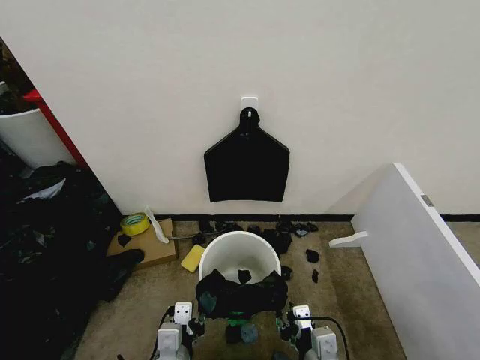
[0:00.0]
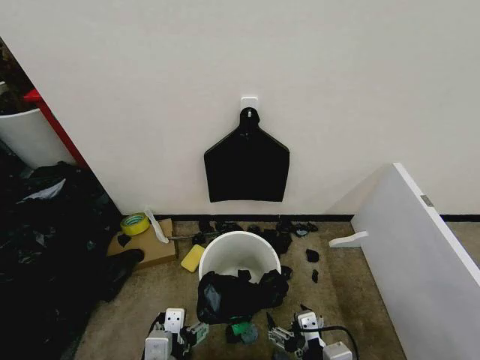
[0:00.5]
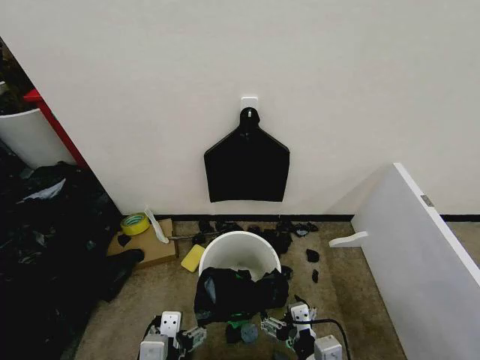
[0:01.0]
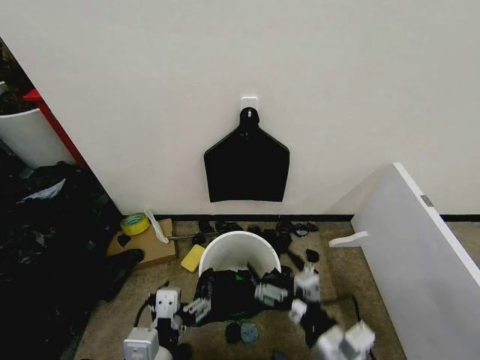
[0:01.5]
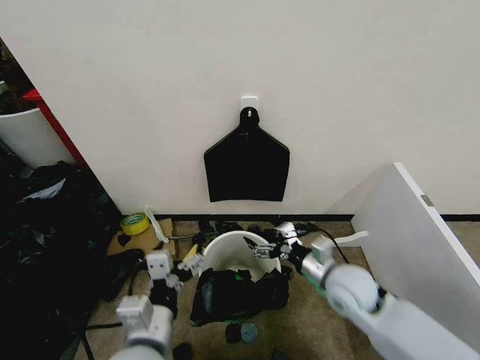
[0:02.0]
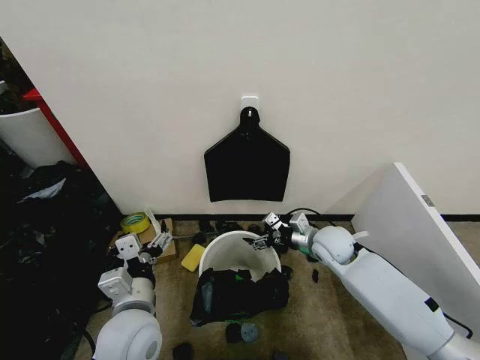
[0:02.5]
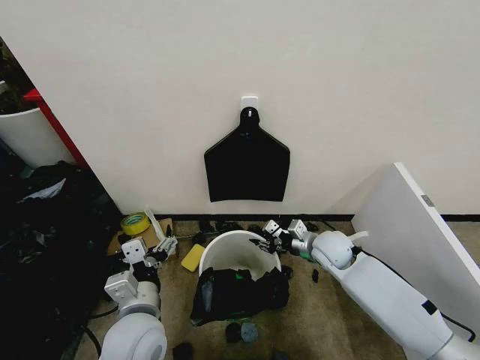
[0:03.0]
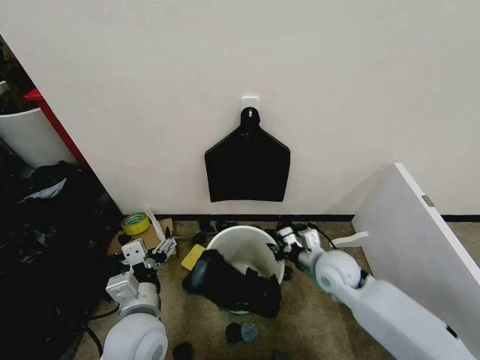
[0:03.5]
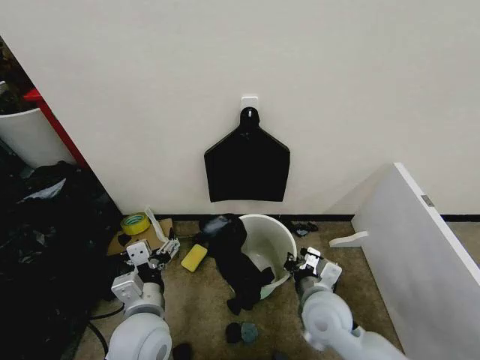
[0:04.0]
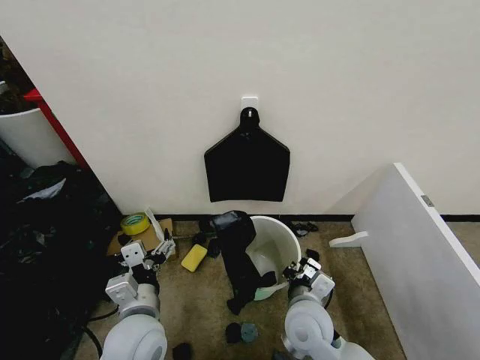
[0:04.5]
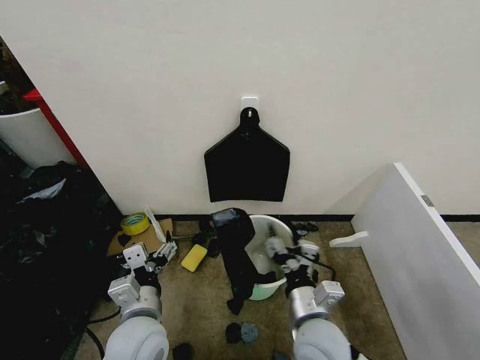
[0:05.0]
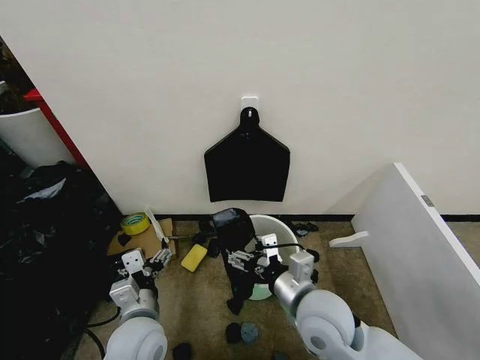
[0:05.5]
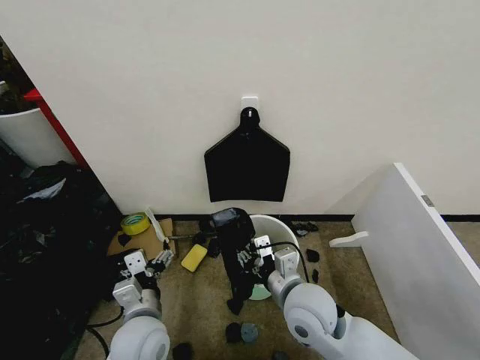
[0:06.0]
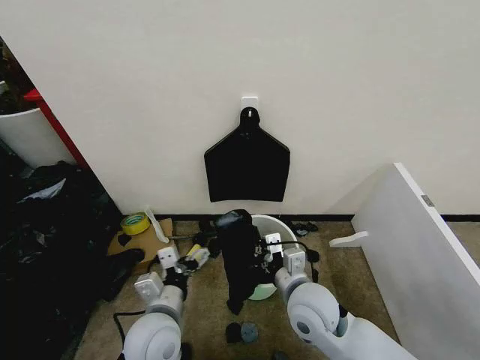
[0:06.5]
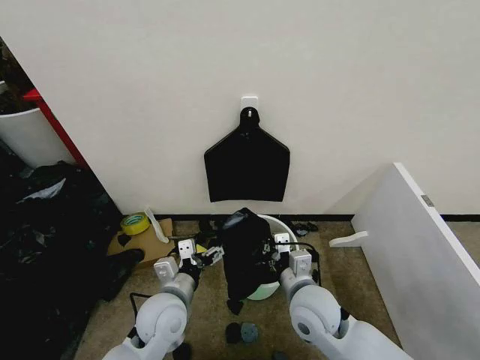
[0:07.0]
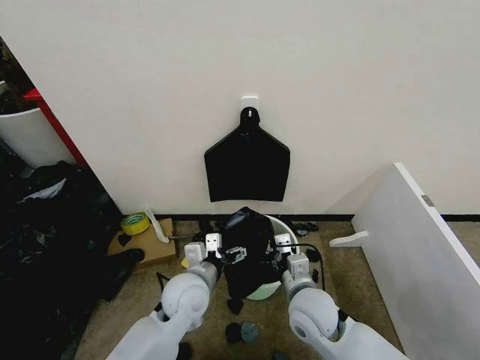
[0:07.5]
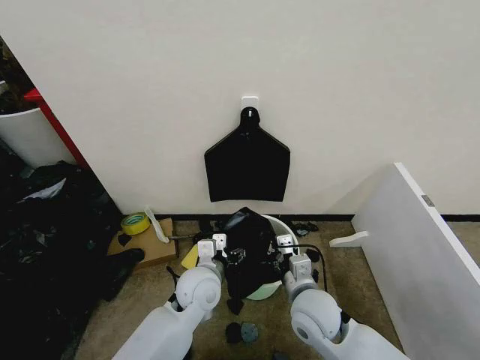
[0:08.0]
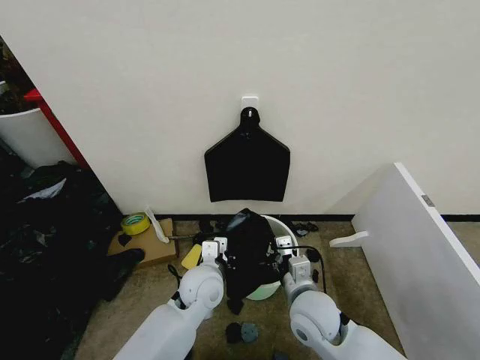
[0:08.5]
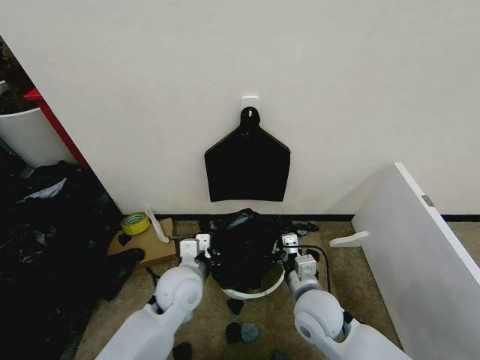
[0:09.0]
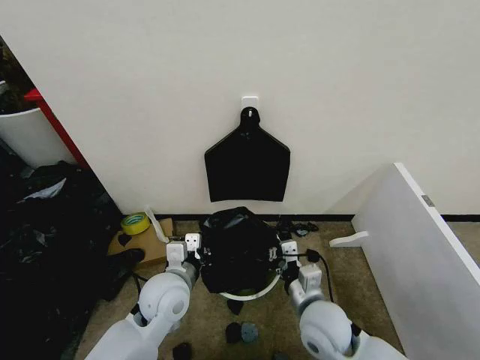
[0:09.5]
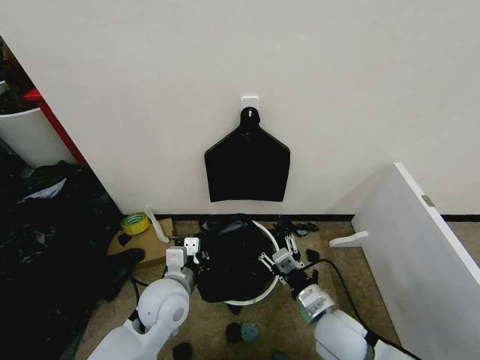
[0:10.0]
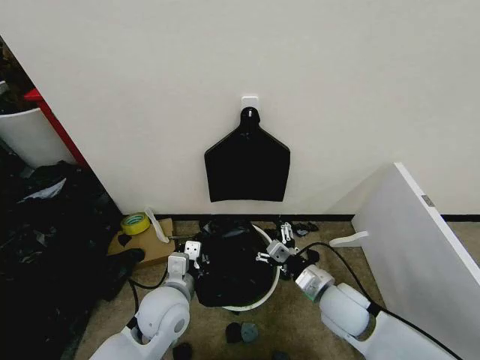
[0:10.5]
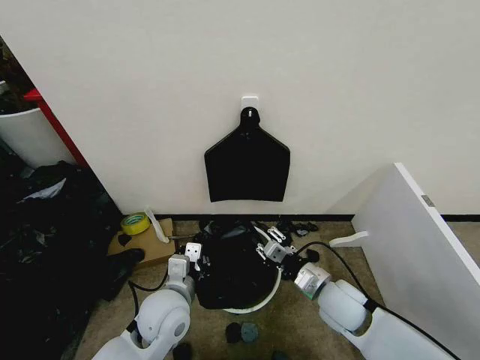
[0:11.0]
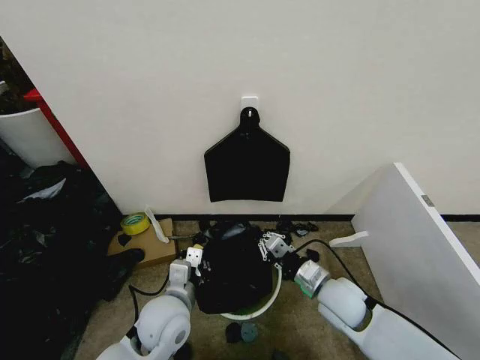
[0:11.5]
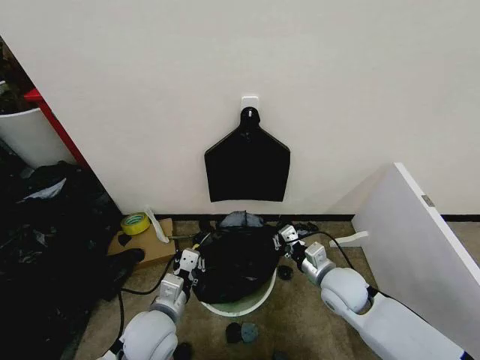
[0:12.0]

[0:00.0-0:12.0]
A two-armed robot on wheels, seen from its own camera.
Task of the whole recording: Place the garbage bag over the trash bin.
0.0 to 2.0 s: The left gripper moves upward, about 10 cm, and opens. The right gripper is displaced forward by roughly 15 cm, and opens its fingers.
2.0 to 4.0 s: The right gripper moves to the left, approximately 5 cm, moves roughly 10 cm forward and comes back, and closes its fingers, while the left gripper shifts some 5 cm forward.
4.0 to 6.0 s: The right gripper moves approximately 5 cm, and opens.
6.0 to 8.0 s: The right gripper shifts by about 5 cm, and closes up; the left gripper moves forward and to the right, some 15 cm.
8.0 to 10.0 s: The left gripper shifts about 5 cm to the left, and closes, while the right gripper moves approximately 5 cm, and opens its fingers.
10.0 to 12.0 s: The left gripper ends up approximately 5 cm from where it was. Meanwhile the right gripper heads forward, covering roughly 10 cm, and closes.

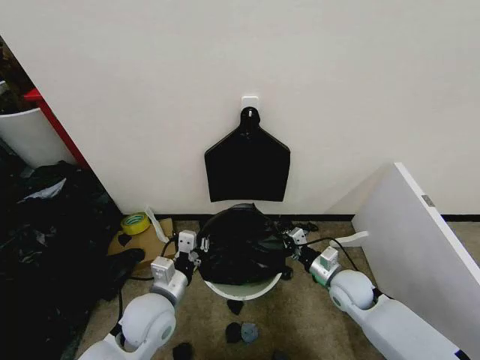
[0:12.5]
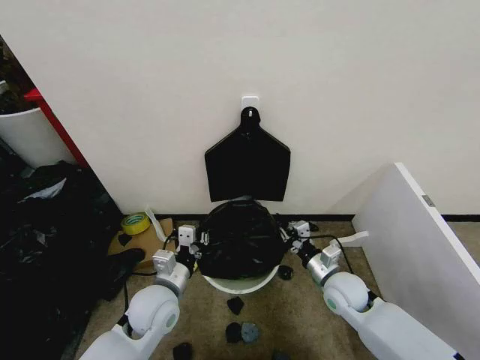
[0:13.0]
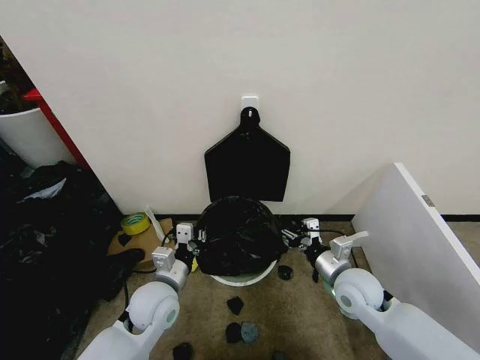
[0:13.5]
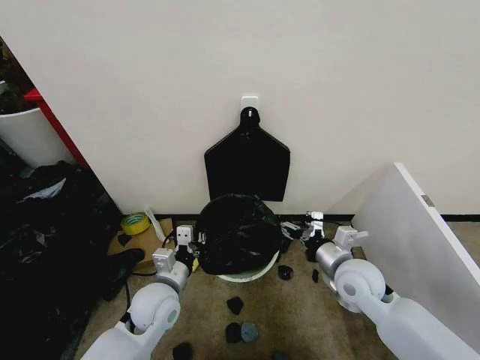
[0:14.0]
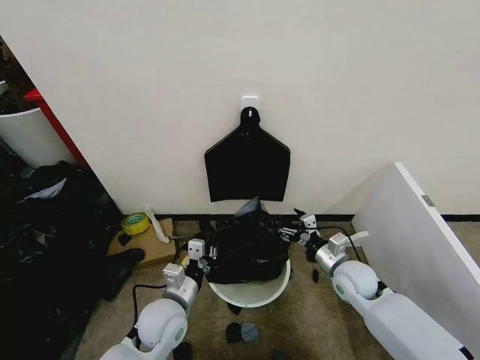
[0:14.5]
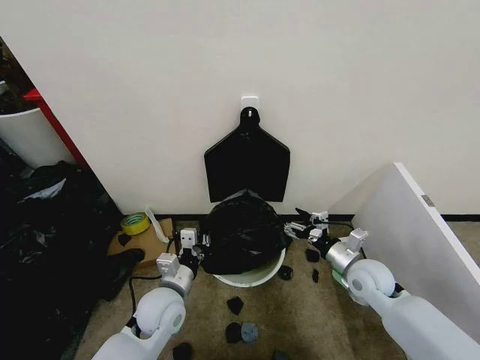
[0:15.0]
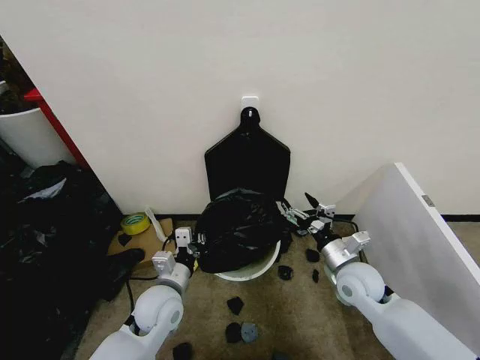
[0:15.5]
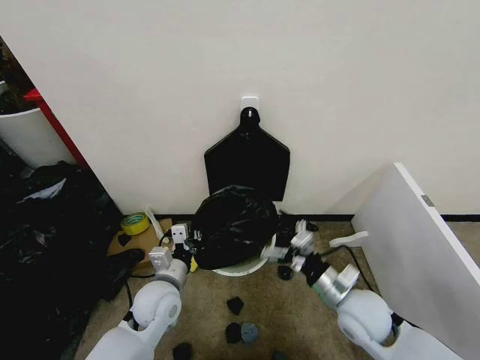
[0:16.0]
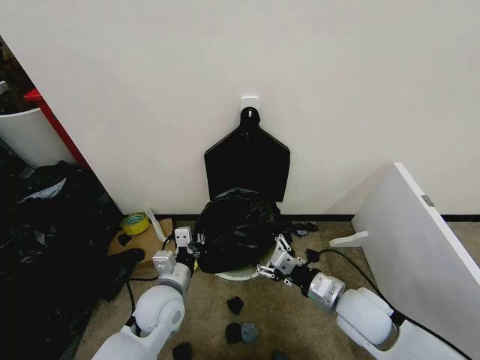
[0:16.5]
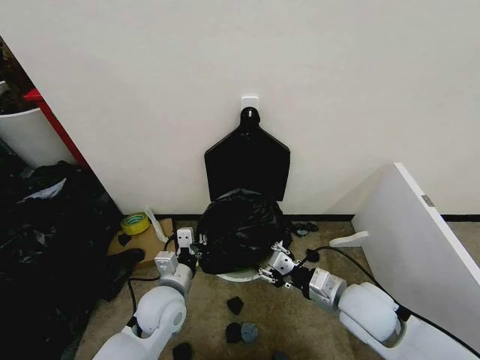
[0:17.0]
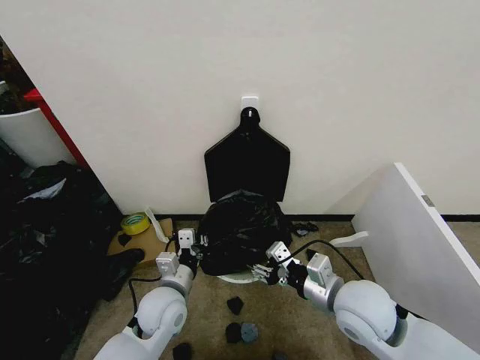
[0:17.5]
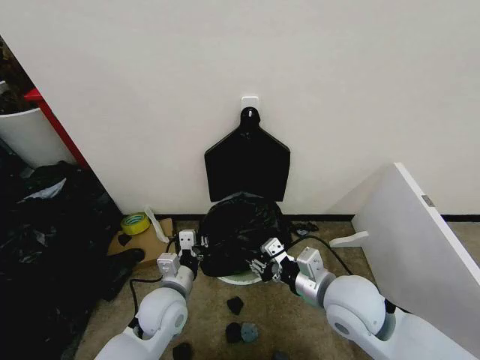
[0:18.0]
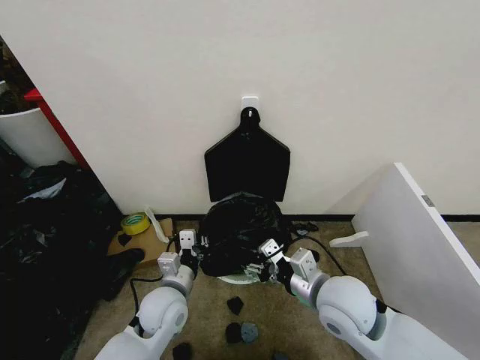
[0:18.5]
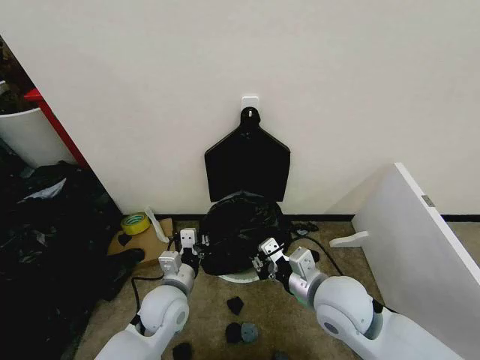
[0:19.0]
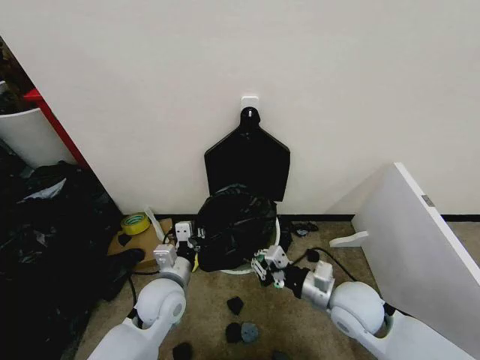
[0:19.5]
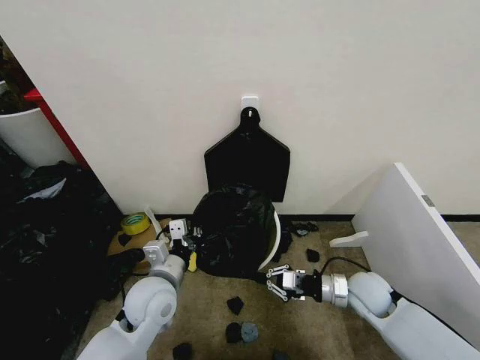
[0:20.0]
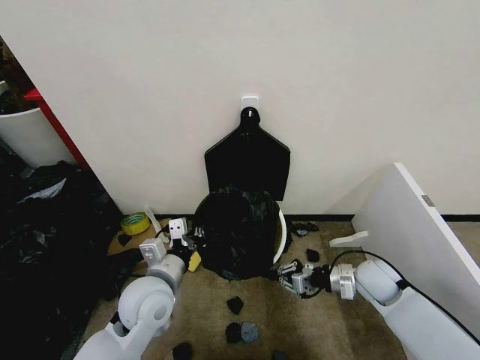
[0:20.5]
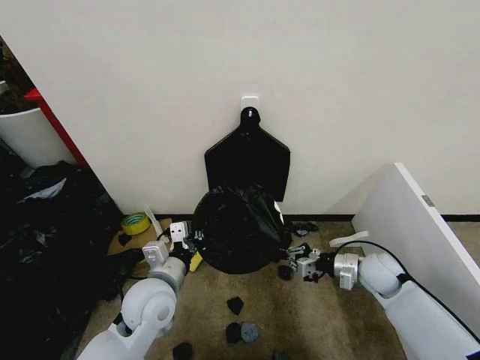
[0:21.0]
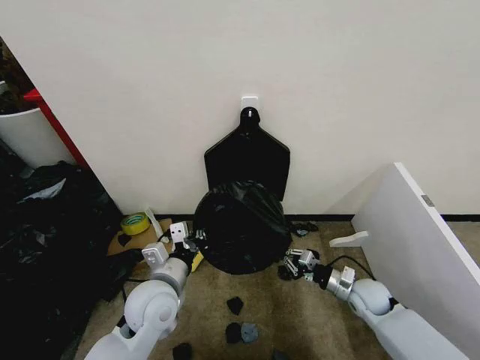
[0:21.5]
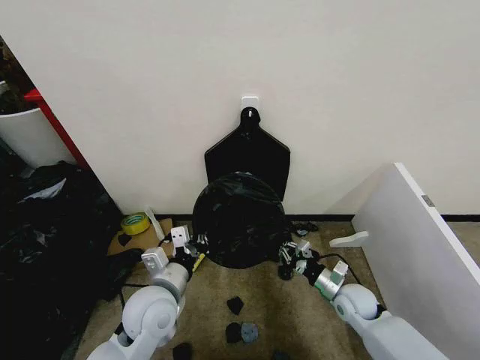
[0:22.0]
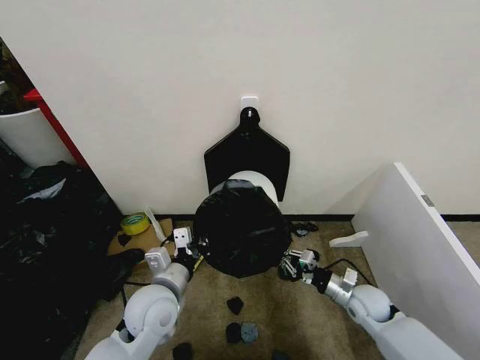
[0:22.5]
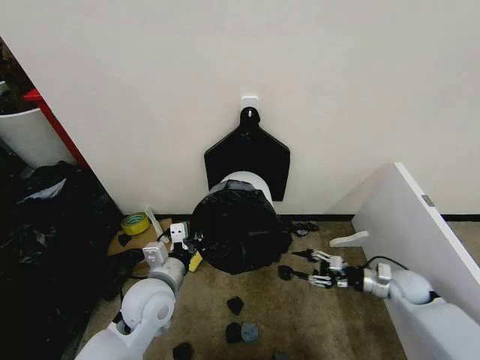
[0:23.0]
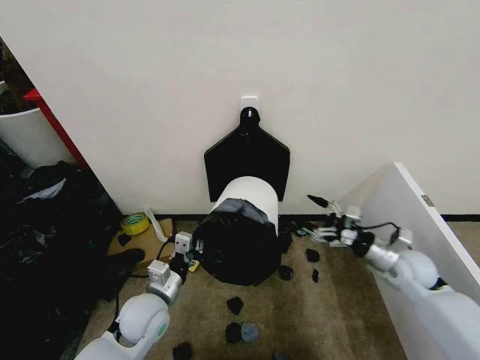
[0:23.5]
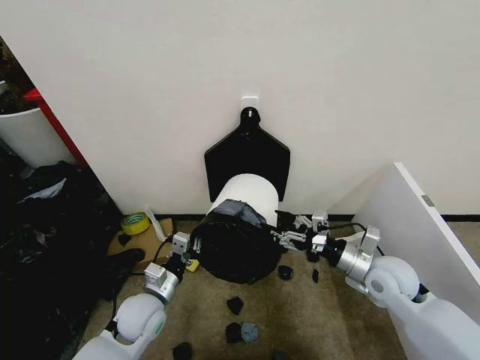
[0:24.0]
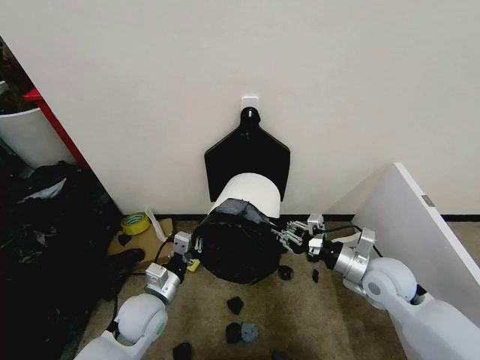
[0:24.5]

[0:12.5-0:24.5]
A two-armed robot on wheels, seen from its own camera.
Task of the whole recording: Place the garbage bag over the trash bin.
12.5 to 14.5 s: The right gripper moves some 10 cm upward and comes back, and opens its fingers.
14.5 to 16.5 s: The right gripper moves backward and upward, some 10 cm.
16.5 to 18.5 s: The right gripper travels upward and to the left by about 10 cm.
18.5 to 20.5 s: The left gripper heads upward, covering about 5 cm. The right gripper moves to the right, downward and forward, some 20 cm, and closes its fingers.
20.5 to 22.5 s: The right gripper goes approximately 5 cm downward.
22.5 to 24.5 s: The left gripper travels downward by approximately 5 cm. The right gripper travels upward by roughly 15 cm, and opens and closes again.

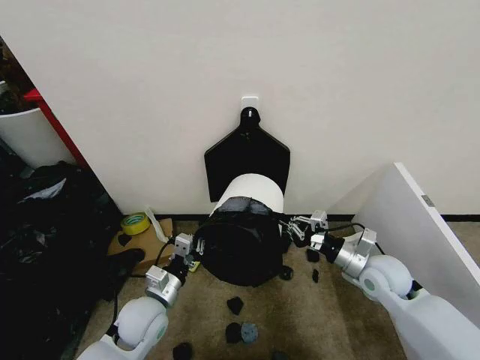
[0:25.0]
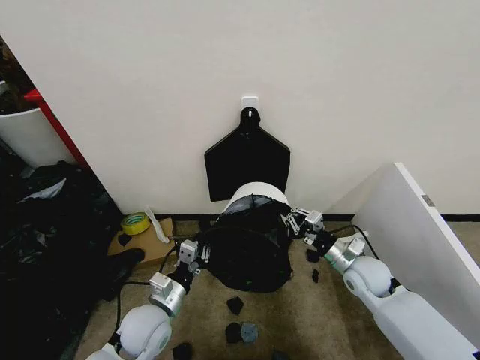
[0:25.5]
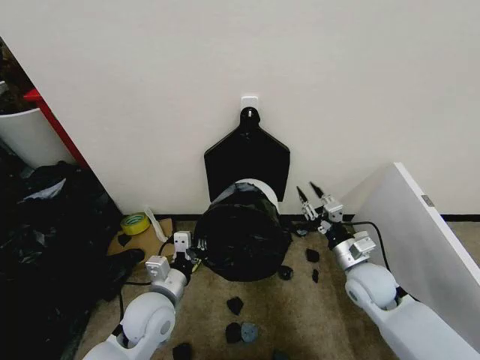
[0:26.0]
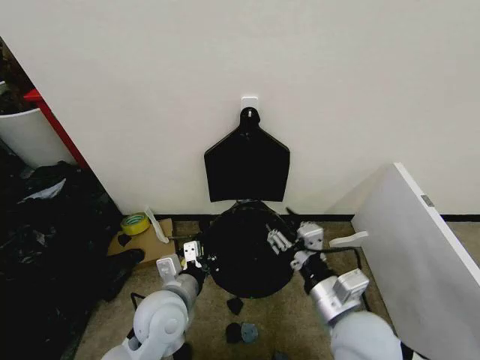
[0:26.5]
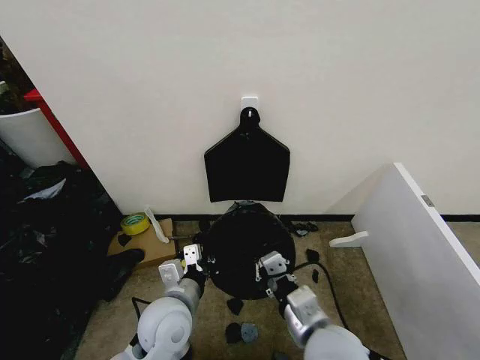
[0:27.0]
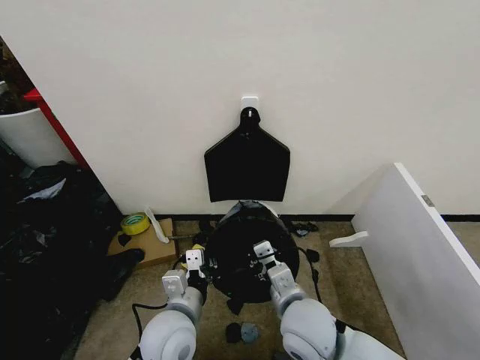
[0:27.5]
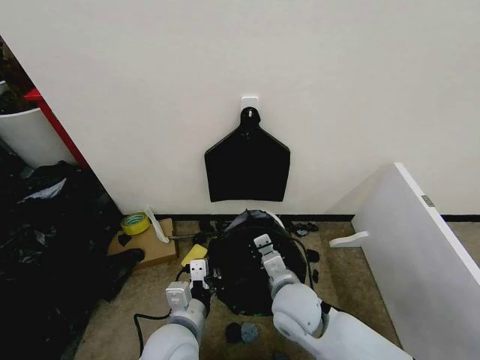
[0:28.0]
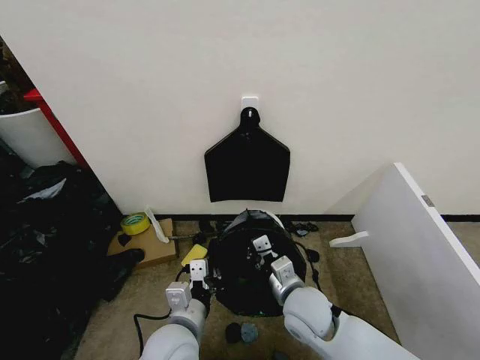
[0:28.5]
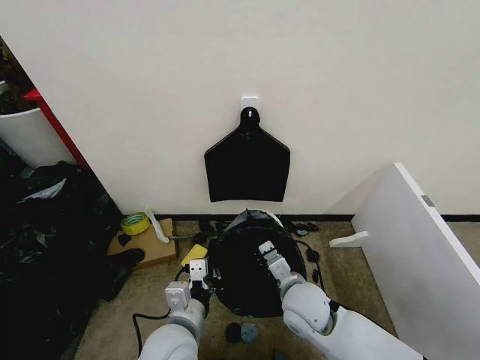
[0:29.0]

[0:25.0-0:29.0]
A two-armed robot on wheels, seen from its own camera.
Task of the whole recording: Place the garbage bag over the trash bin.
25.0 to 27.0 s: The right gripper travels to the left and backward by approximately 25 cm, and opens and closes again; the left gripper travels to the right and upward by about 10 cm.
27.0 to 29.0 s: The right gripper heads forward and downward, covering roughly 10 cm.
